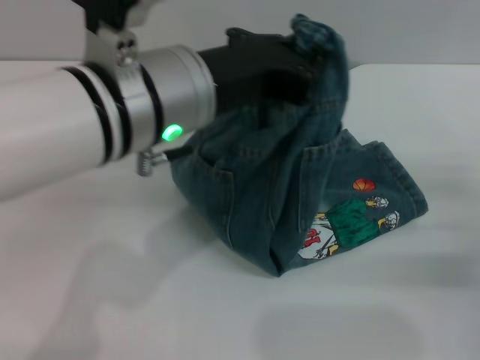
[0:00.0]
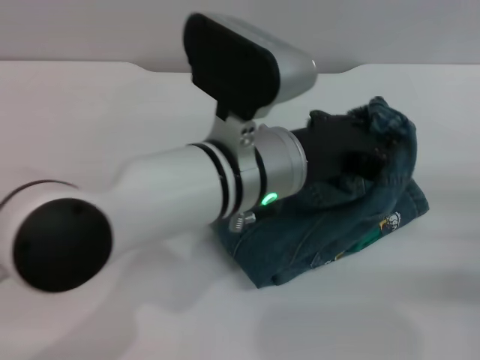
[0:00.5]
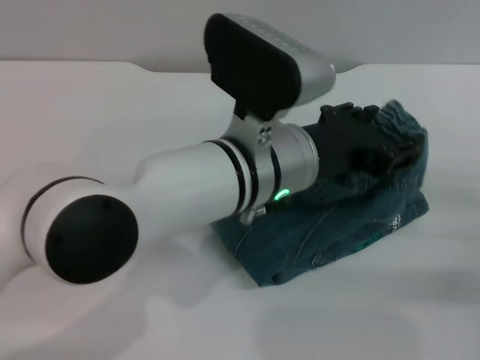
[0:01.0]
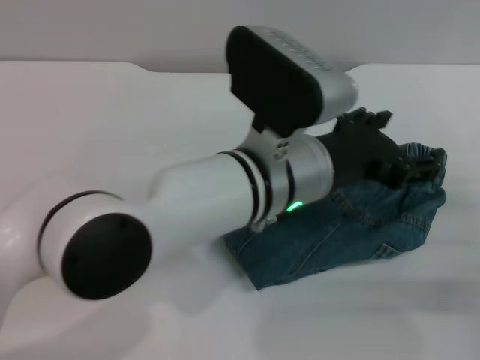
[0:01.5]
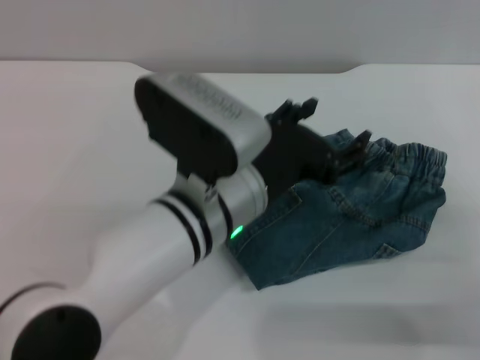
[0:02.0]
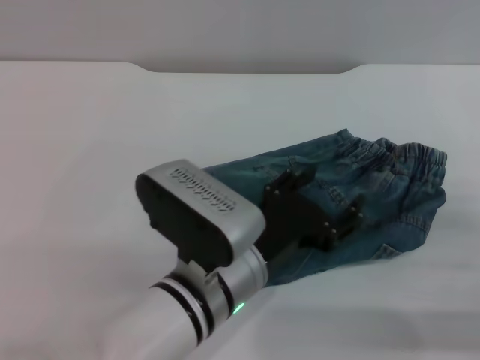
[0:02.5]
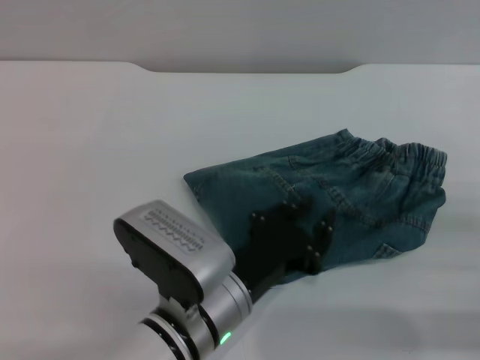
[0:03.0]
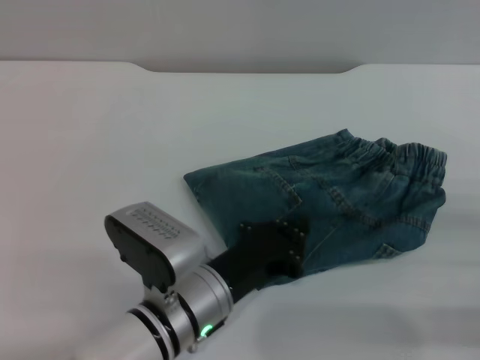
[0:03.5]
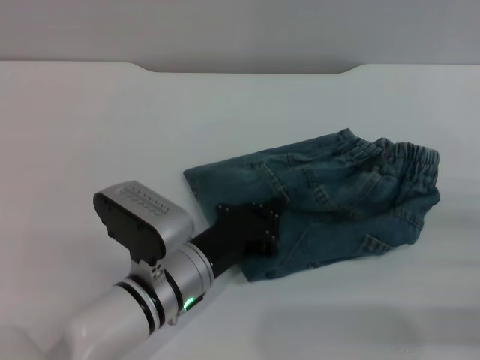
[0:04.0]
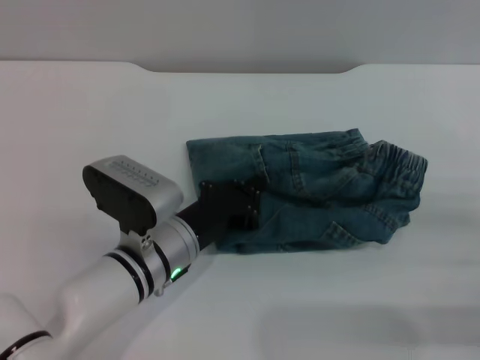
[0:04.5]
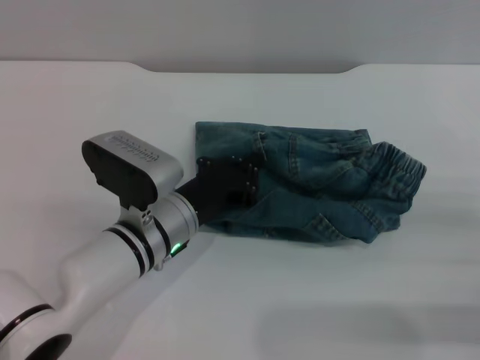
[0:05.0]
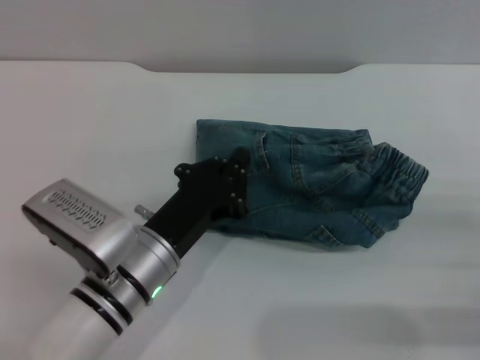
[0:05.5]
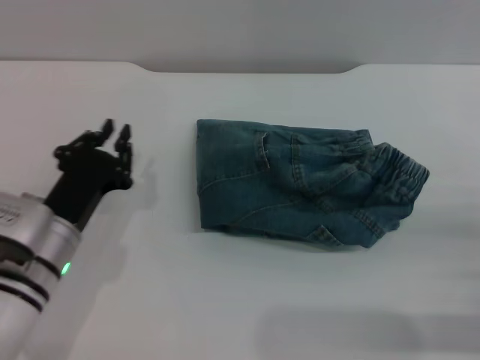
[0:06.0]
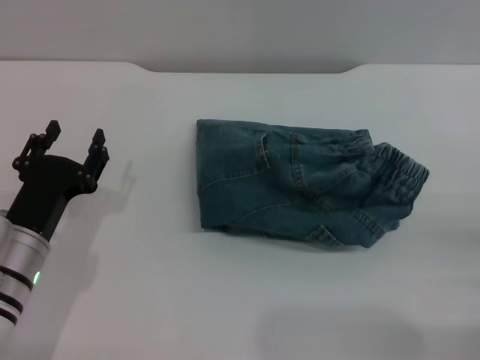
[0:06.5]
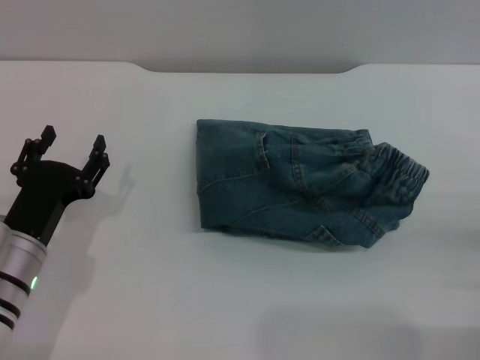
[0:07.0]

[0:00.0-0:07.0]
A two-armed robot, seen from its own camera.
Step, 0:02.0 to 0:05.0: Place the folded trousers onto the center area with the left grippers.
0:00.0 to 0:02.0: The left gripper shifts approximately 10 cm downward, and opens its fingers.
0:02.0 to 0:03.5: The left gripper shifts roughly 10 cm downward, and closes up.
0:03.5 to 0:05.0: The left gripper travels forward by roughly 10 cm.
0:05.0 to 0:07.0: The right gripper opens its fingers; the left gripper travels to the left and backward by about 15 cm, and opens up.

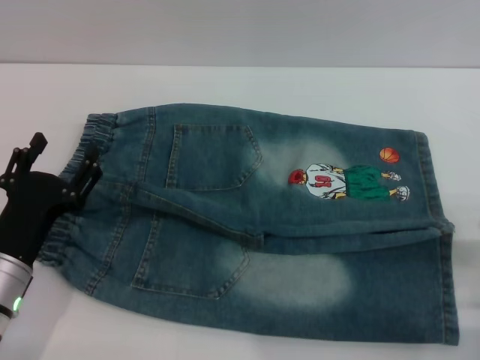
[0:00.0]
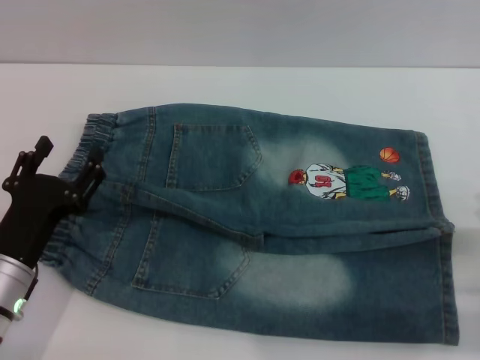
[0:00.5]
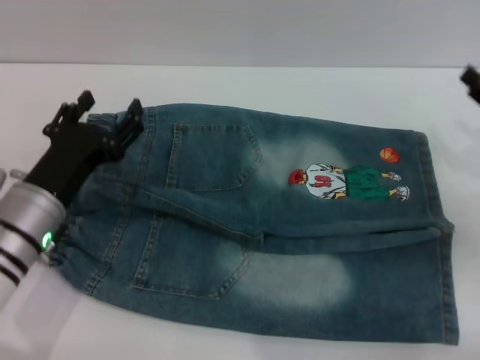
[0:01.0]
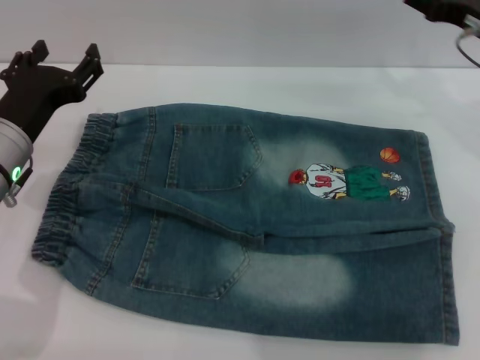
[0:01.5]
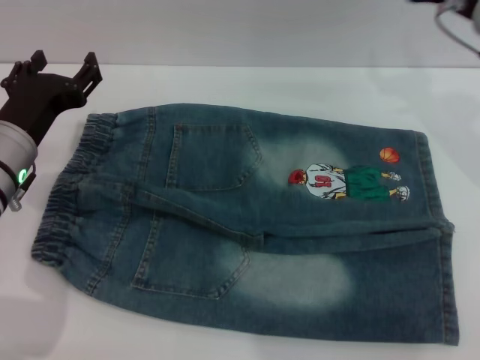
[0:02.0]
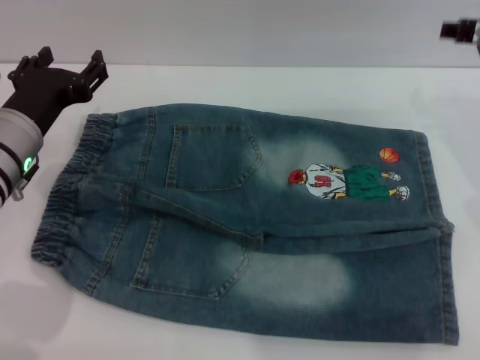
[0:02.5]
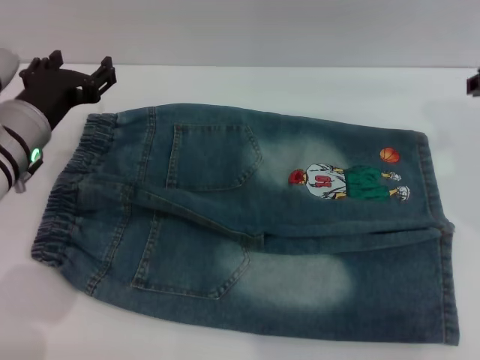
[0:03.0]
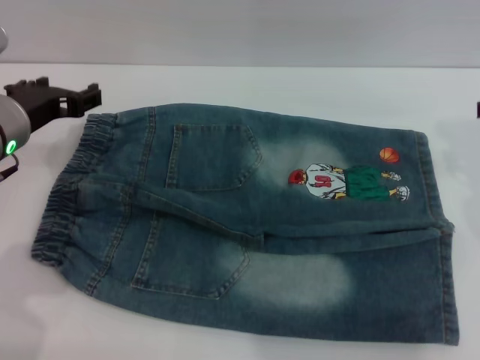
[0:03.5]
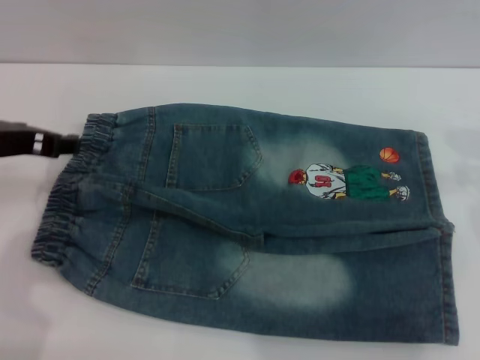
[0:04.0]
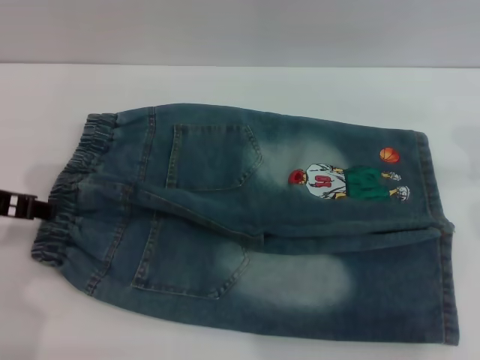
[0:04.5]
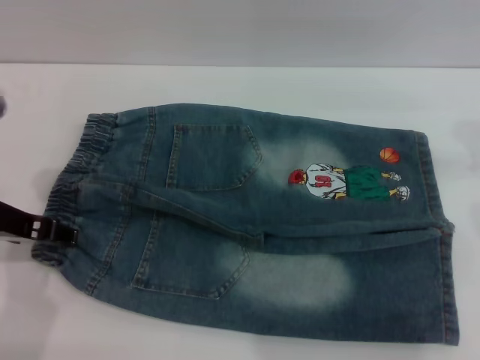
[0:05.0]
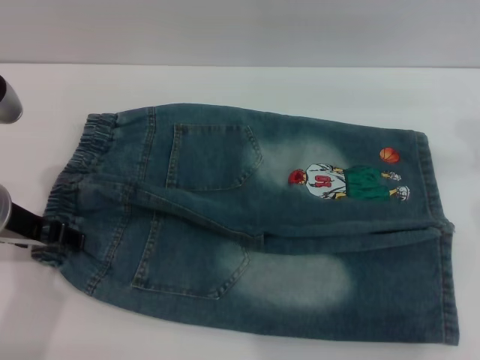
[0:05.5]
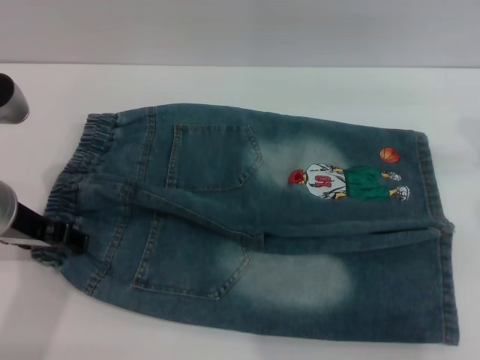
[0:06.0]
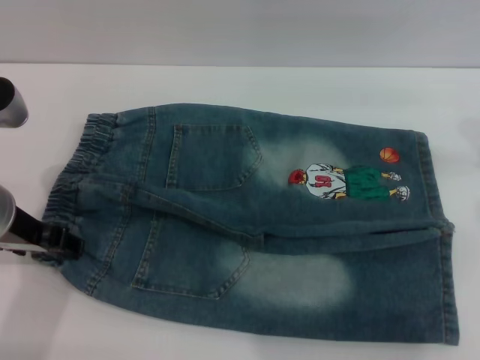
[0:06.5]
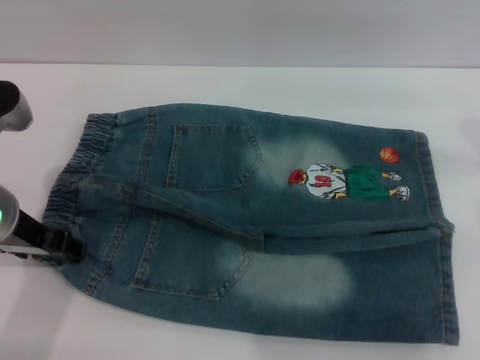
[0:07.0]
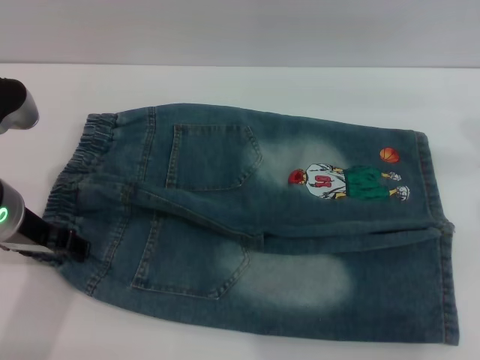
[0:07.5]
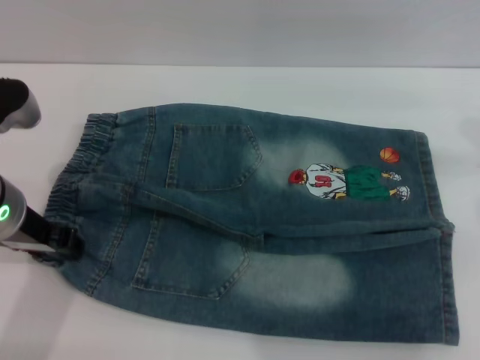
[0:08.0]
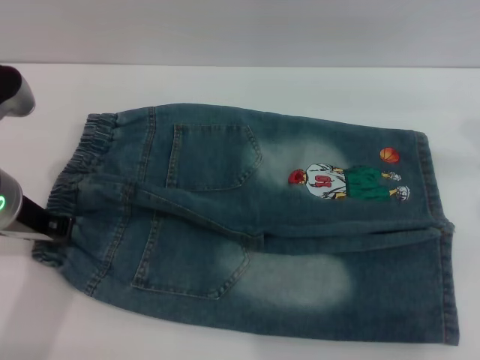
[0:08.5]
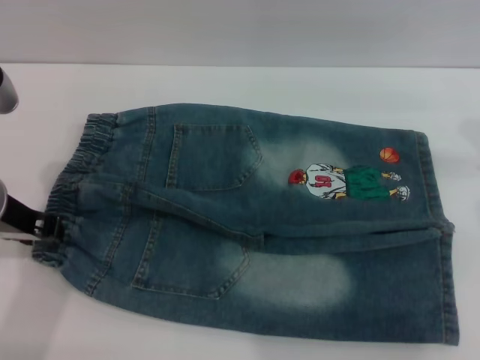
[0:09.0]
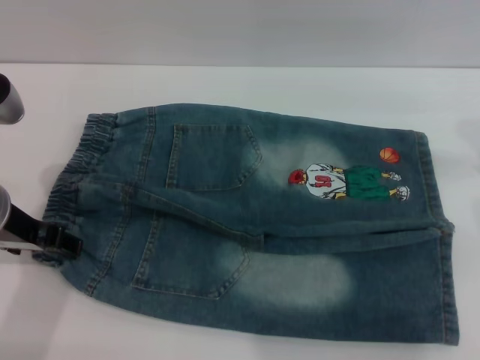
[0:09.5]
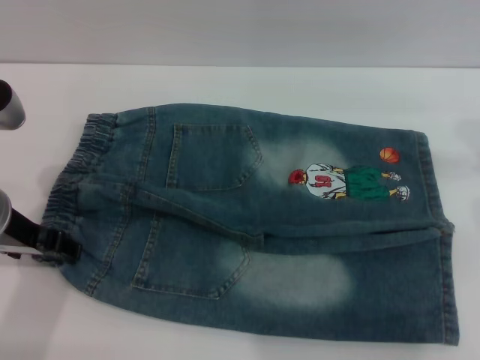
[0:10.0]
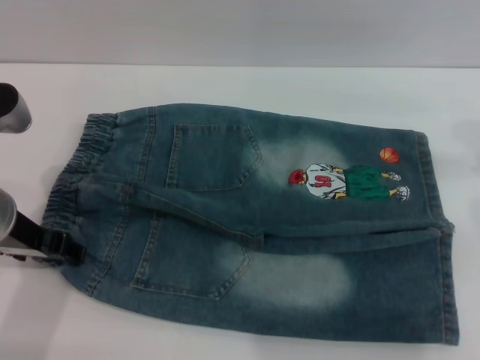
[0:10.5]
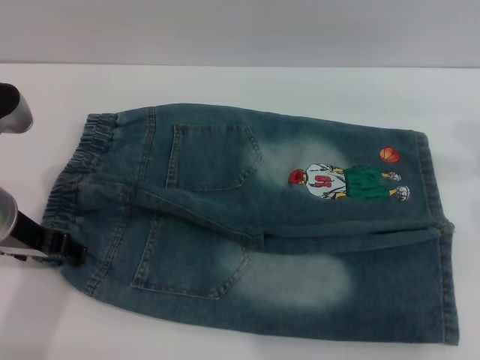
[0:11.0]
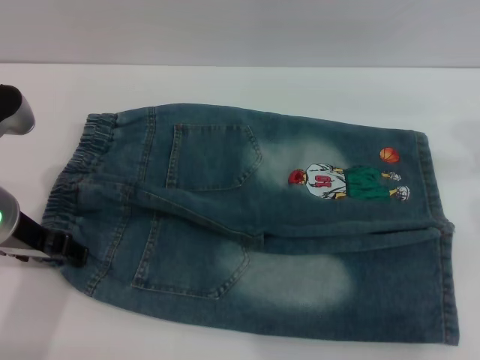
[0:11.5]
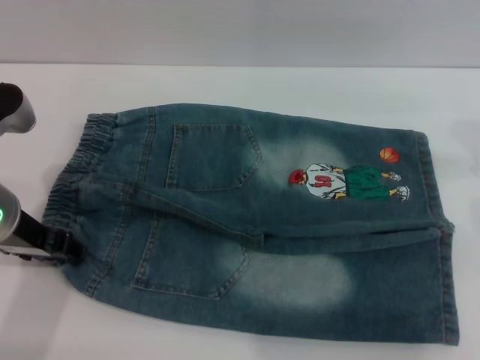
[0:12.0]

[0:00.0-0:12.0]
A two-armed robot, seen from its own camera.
0:00.0 to 0:02.0: The right gripper goes about 30 cm forward and upward. Meanwhile the left gripper is displaced forward and upward by about 10 cm.
0:02.0 to 0:04.0: The left gripper goes roughly 10 cm upward. Meanwhile the right gripper shifts approximately 10 cm backward.
0:06.0 to 0:08.0: Neither gripper changes place.
0:08.0 to 0:10.0: The left gripper closes, then reopens.
0:10.0 to 0:12.0: Neither gripper changes place.

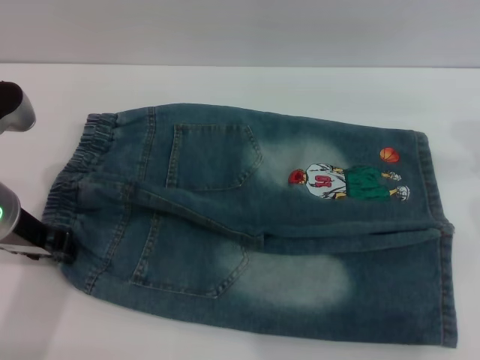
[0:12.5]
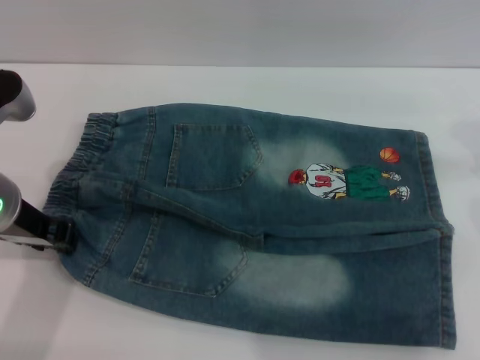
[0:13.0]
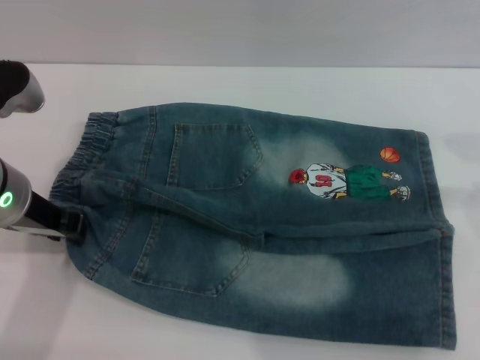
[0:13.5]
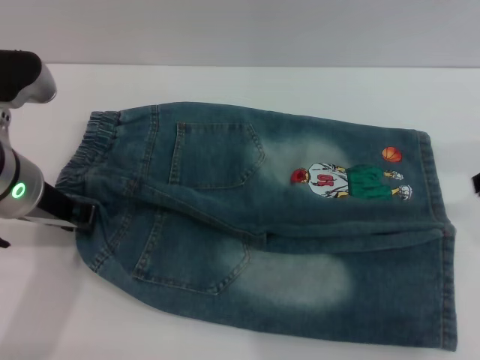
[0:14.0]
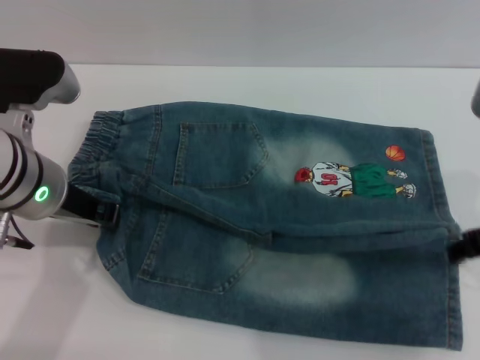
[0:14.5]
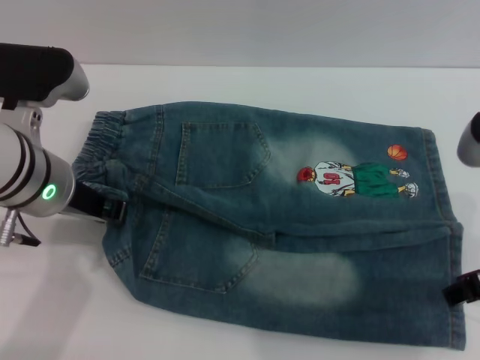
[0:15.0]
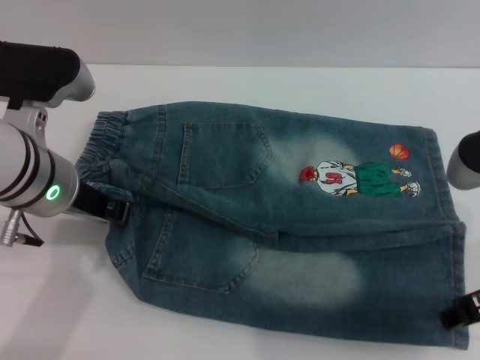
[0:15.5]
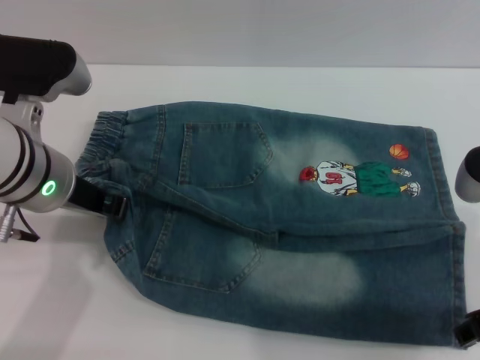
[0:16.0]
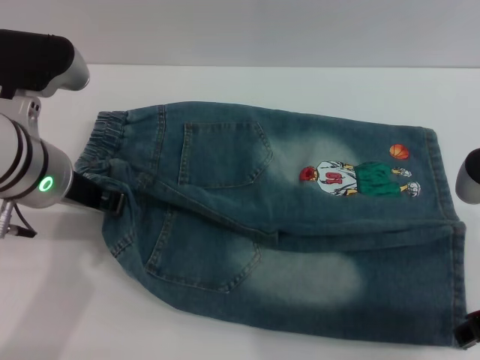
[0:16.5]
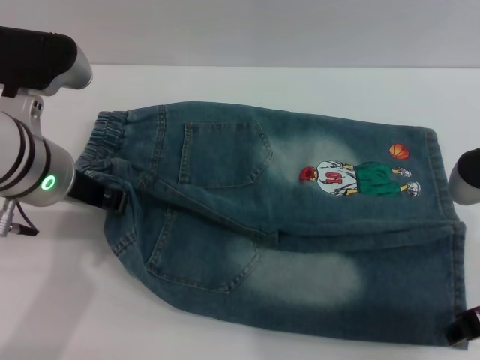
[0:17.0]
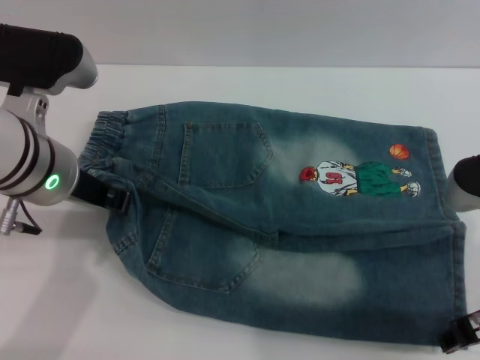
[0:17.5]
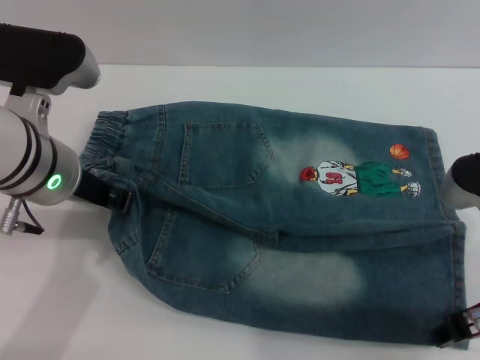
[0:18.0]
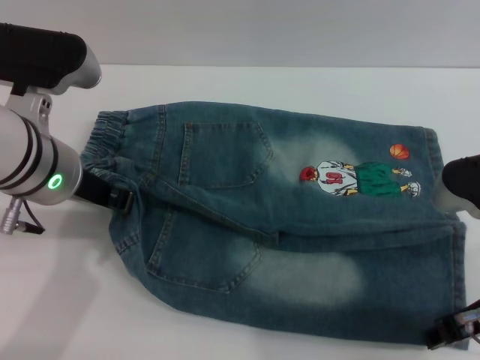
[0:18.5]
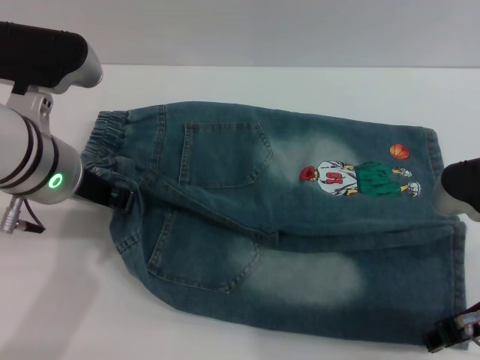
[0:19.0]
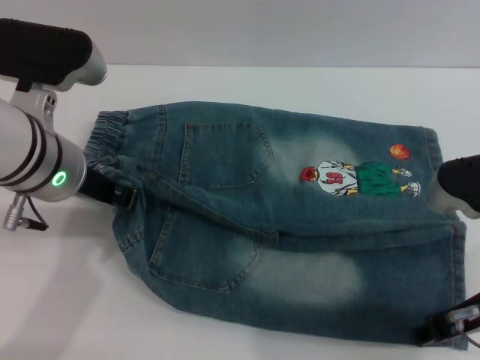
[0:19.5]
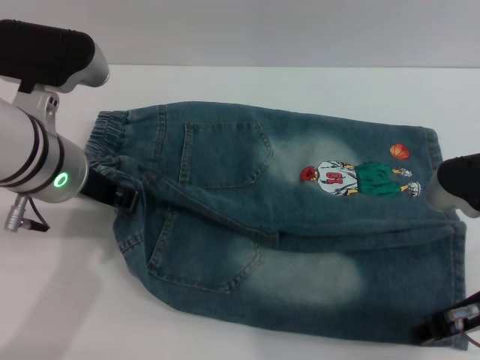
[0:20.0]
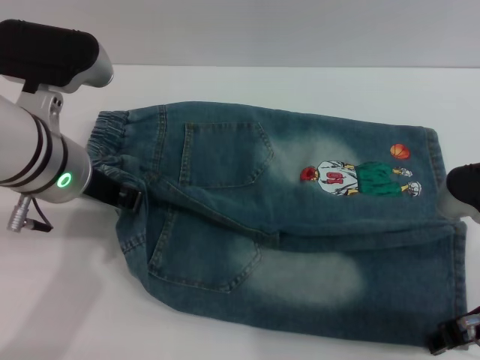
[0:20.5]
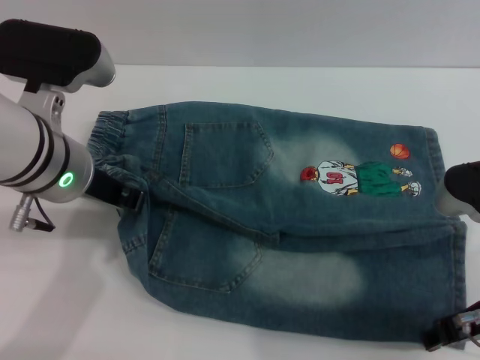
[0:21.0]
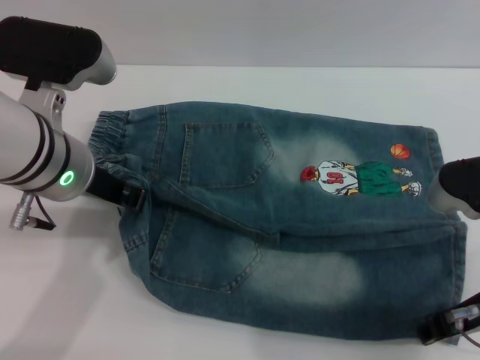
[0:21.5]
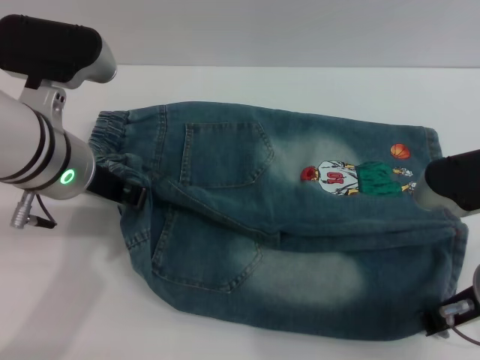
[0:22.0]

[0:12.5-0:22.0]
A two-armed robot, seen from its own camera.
0:12.5 to 0:14.5: The right gripper travels backward and to the left by approximately 10 cm.
0:14.5 to 0:18.0: There are only small adjustments of the grippers.
0:18.0 to 0:20.0: Neither gripper changes place.
0:20.0 to 0:22.0: The right gripper closes.
